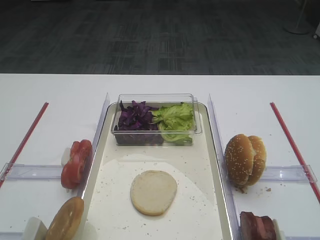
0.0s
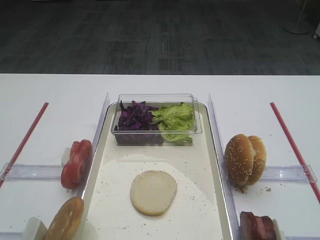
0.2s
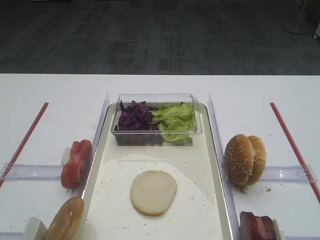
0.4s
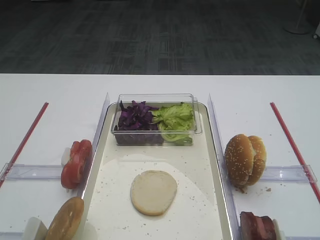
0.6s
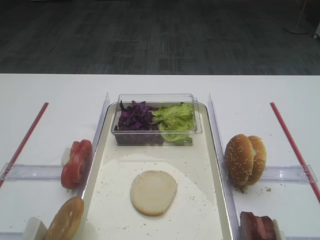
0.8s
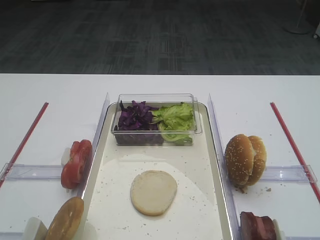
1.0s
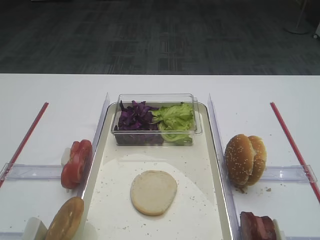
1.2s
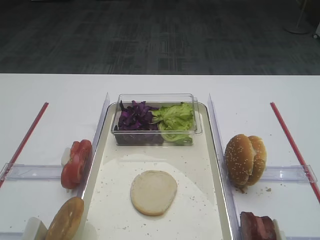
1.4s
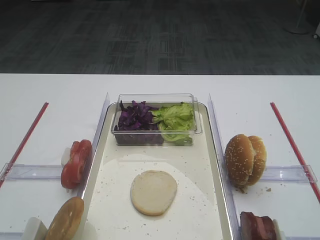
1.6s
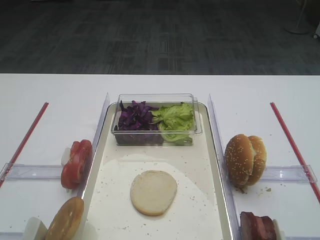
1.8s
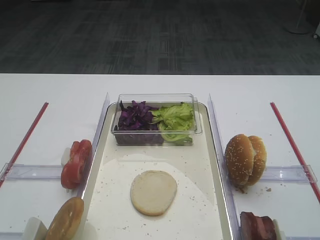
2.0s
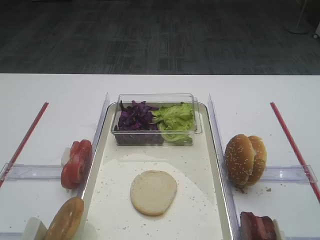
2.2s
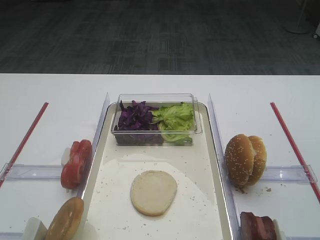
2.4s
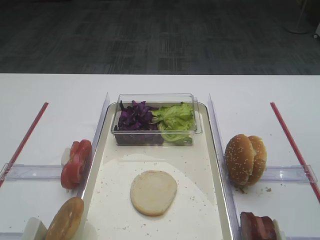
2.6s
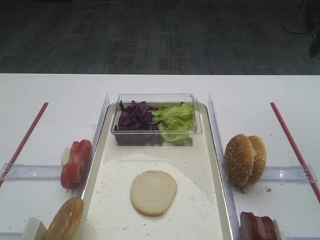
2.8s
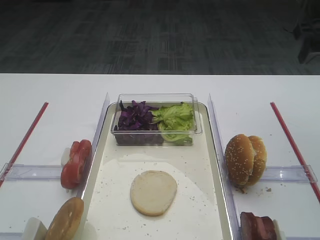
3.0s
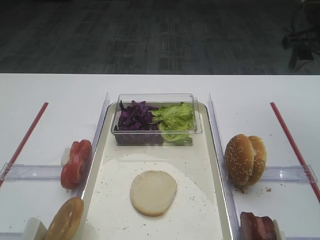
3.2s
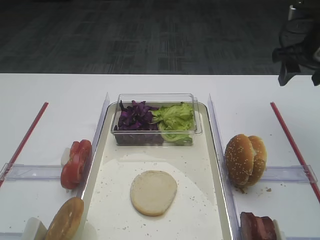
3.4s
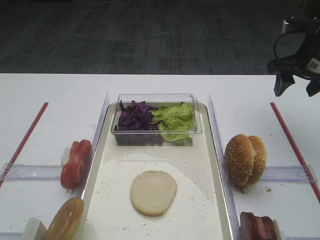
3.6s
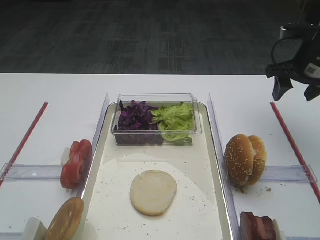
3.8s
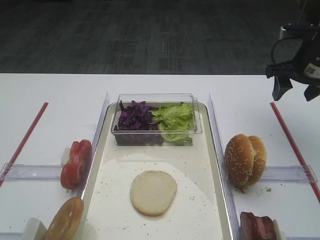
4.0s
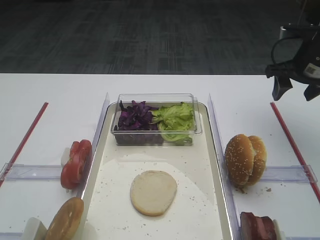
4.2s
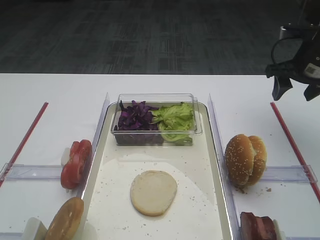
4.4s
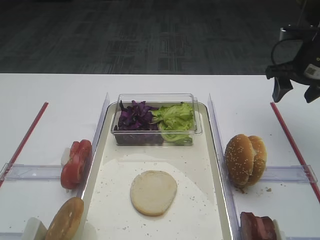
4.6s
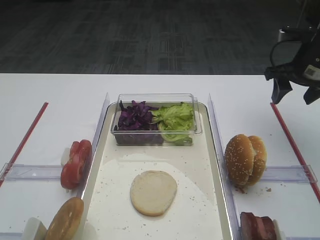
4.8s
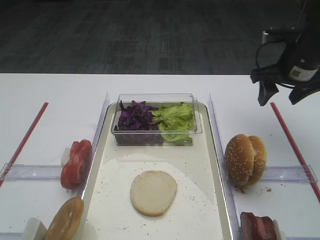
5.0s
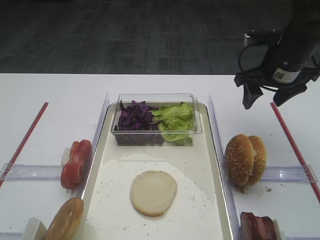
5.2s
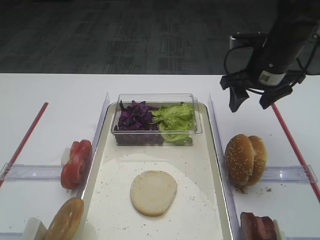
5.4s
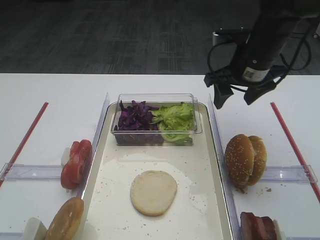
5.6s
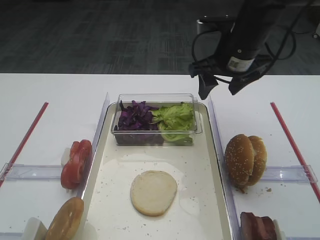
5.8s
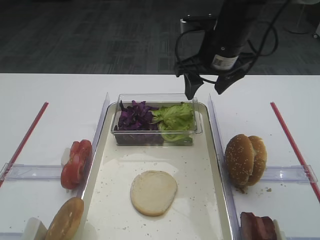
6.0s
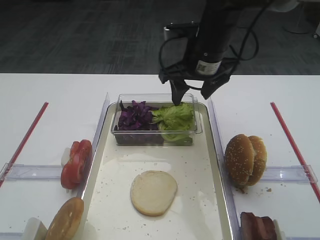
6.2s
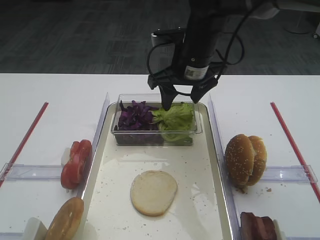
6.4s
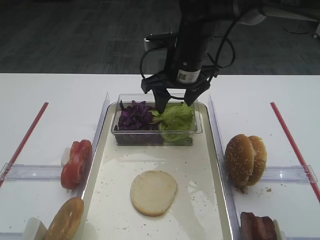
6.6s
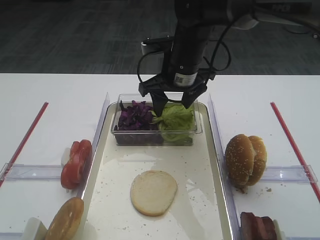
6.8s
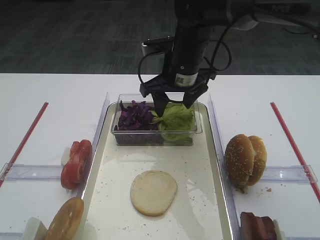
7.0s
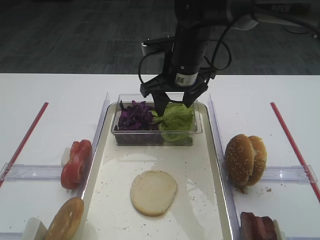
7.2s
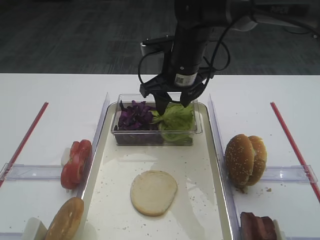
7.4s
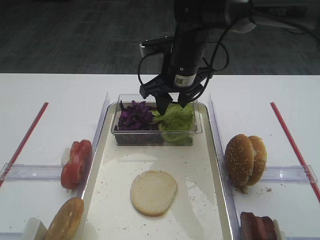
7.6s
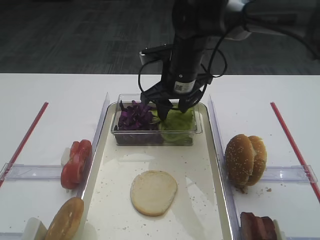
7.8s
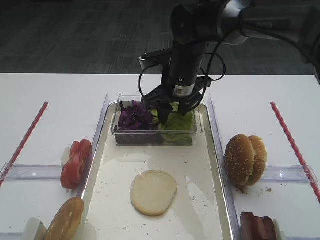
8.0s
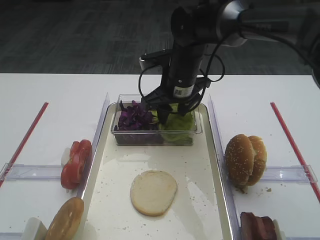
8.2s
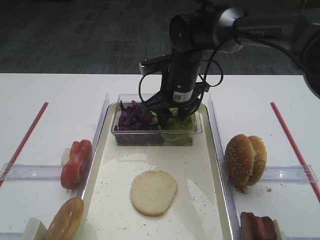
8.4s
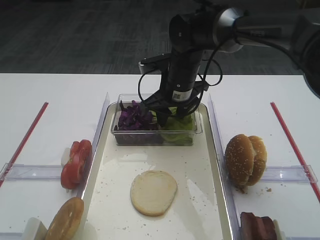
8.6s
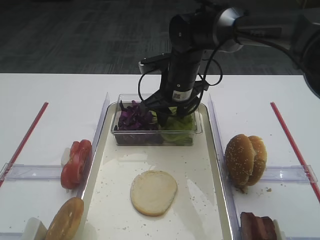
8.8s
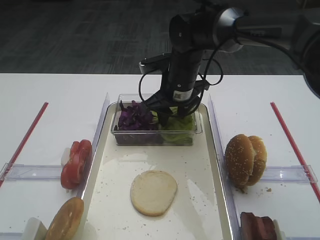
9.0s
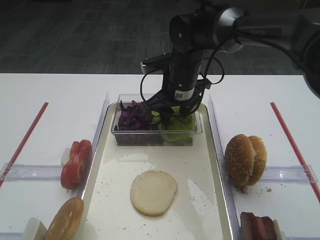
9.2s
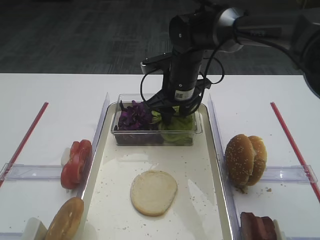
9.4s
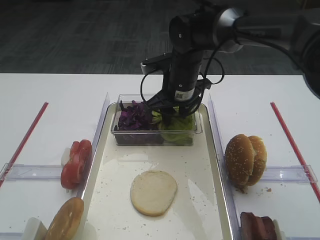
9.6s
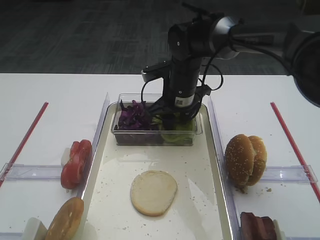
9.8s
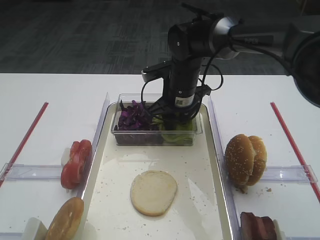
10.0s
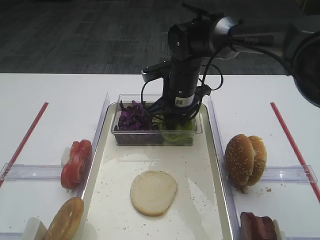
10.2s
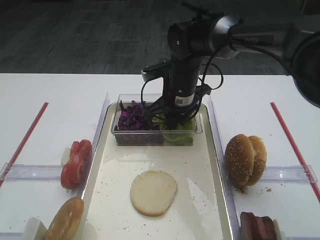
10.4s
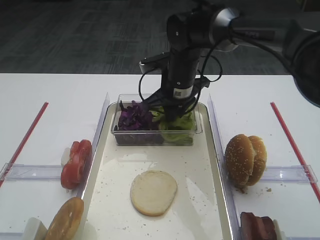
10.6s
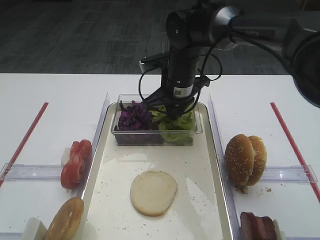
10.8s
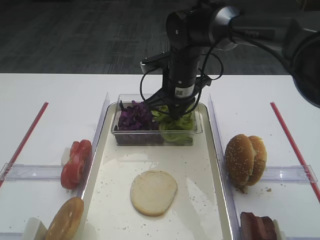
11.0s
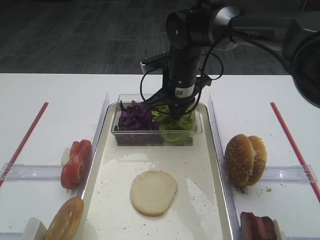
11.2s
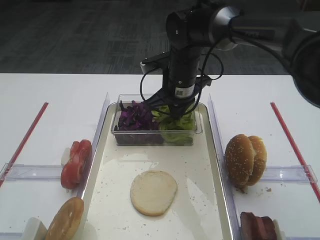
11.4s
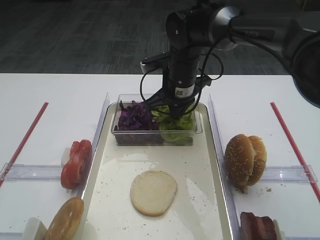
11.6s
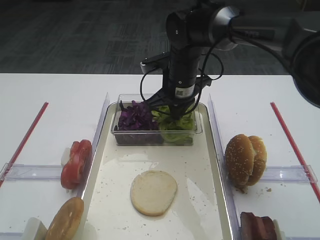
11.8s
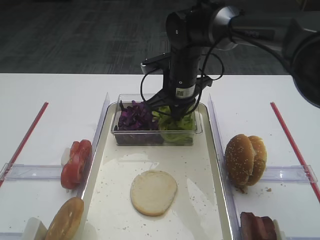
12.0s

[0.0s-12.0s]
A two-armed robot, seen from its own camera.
1.6s to 3.0s: The right gripper goes some 30 cm forward.
3.0s to 4.4s: The right gripper heads downward and forward, covering some 10 cm.
4.4s to 6.0s: The right gripper heads to the left, covering approximately 20 cm.
6.0s to 7.6s: The right gripper is displaced to the left by about 5 cm.
7.6s to 12.0s: There are only small adjustments of the grippers.

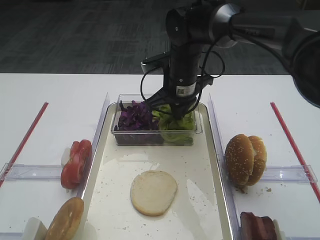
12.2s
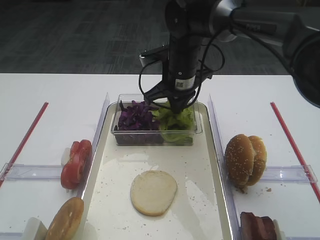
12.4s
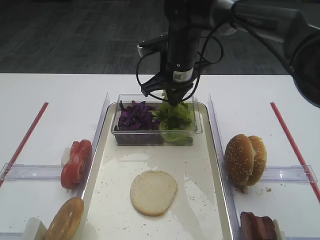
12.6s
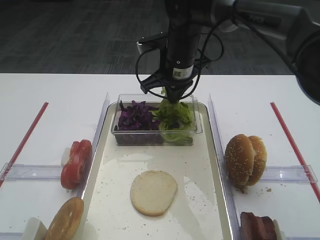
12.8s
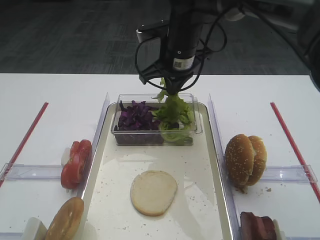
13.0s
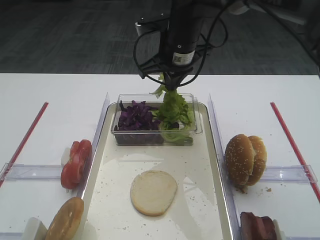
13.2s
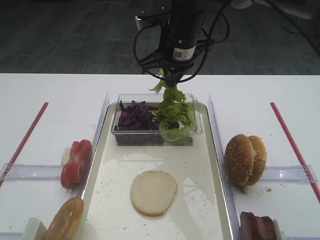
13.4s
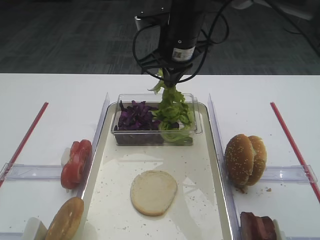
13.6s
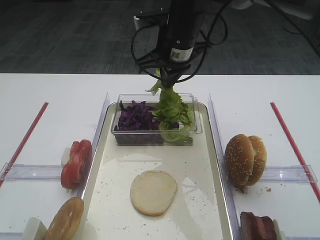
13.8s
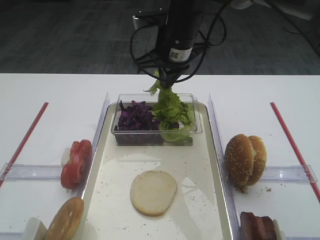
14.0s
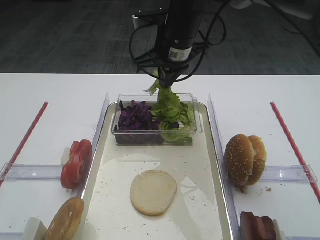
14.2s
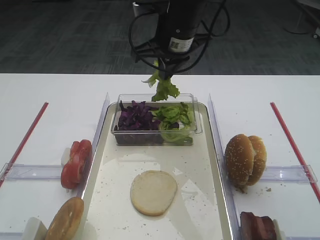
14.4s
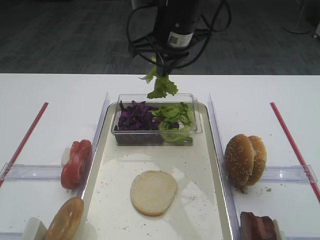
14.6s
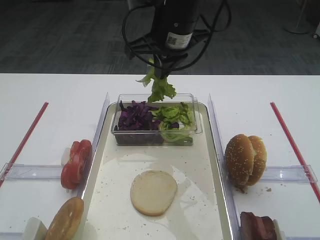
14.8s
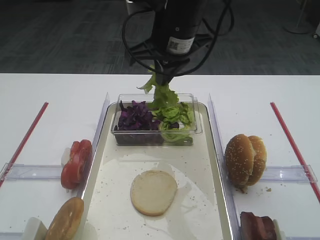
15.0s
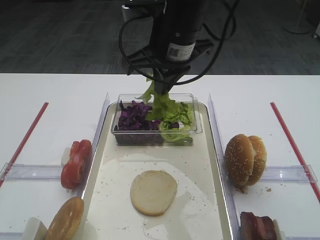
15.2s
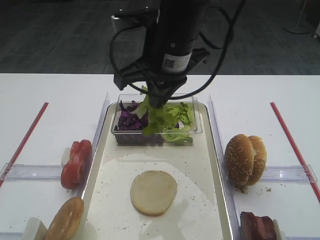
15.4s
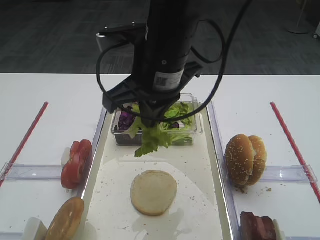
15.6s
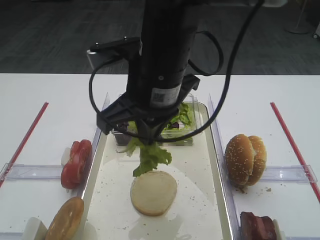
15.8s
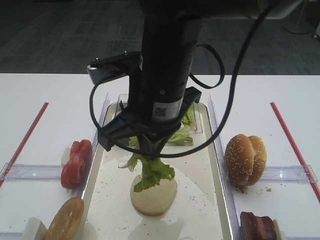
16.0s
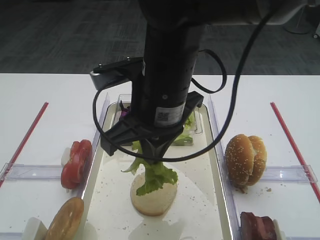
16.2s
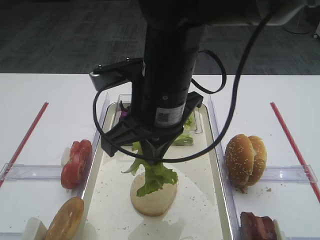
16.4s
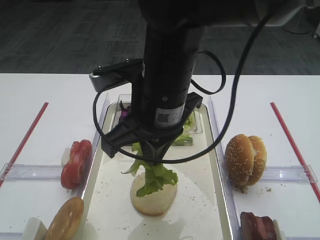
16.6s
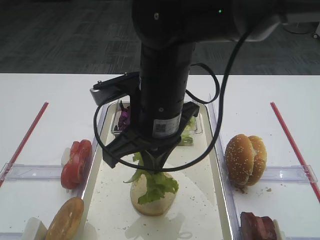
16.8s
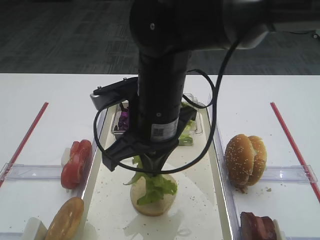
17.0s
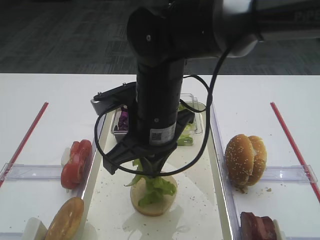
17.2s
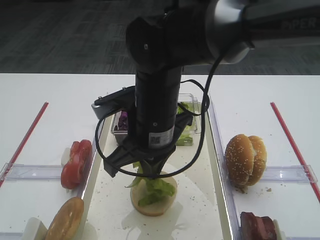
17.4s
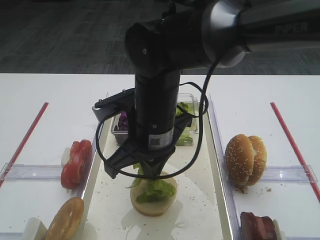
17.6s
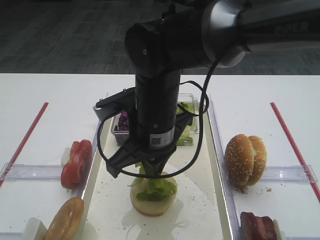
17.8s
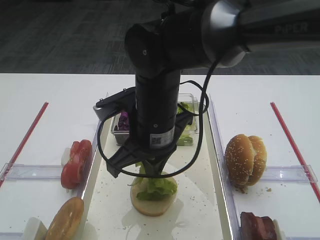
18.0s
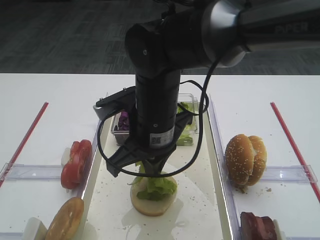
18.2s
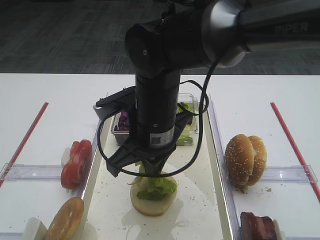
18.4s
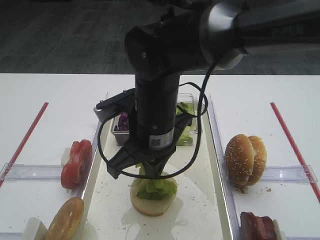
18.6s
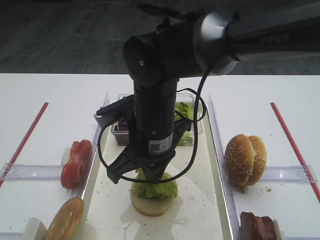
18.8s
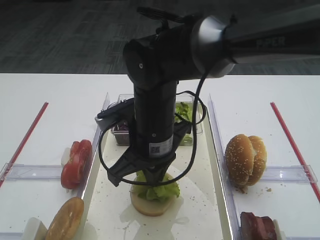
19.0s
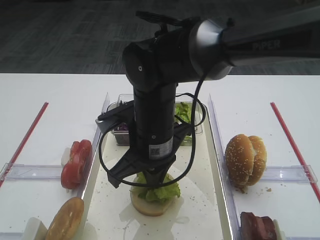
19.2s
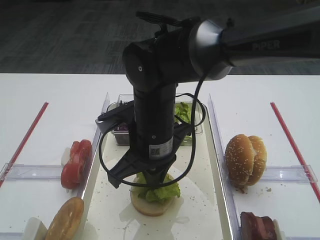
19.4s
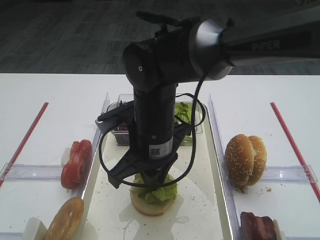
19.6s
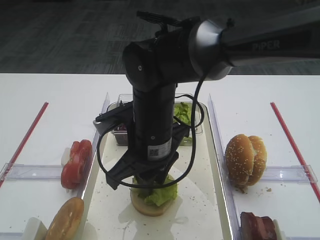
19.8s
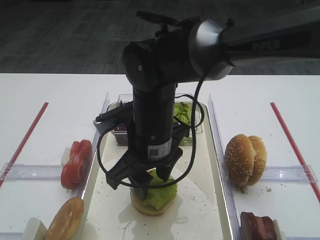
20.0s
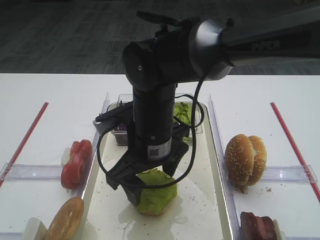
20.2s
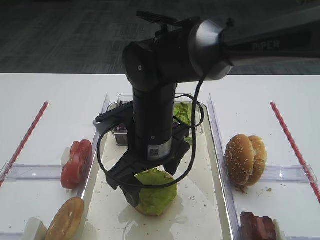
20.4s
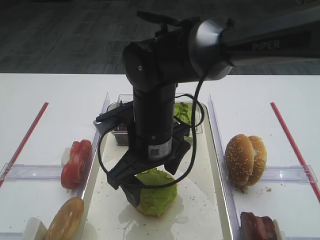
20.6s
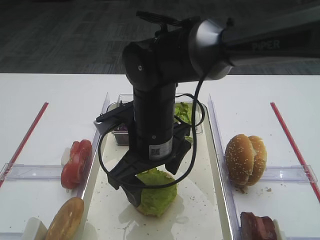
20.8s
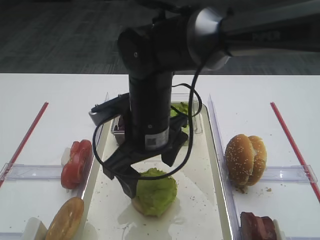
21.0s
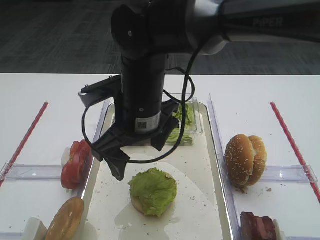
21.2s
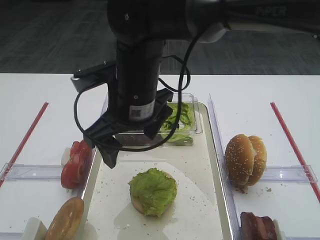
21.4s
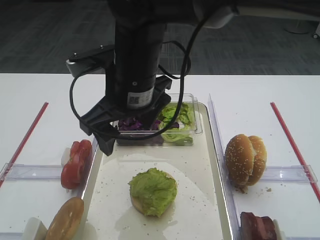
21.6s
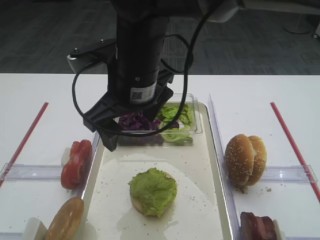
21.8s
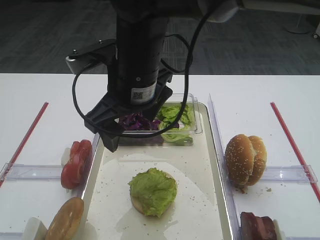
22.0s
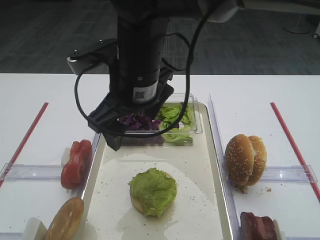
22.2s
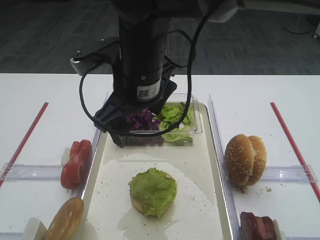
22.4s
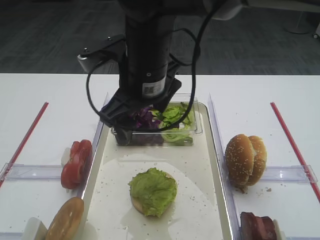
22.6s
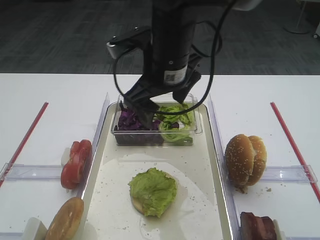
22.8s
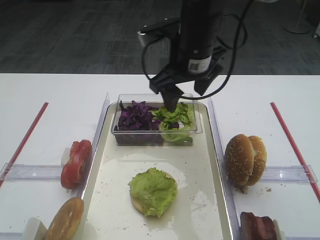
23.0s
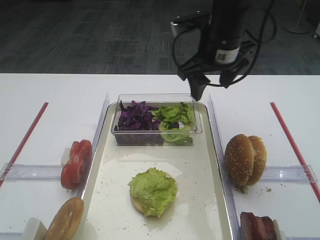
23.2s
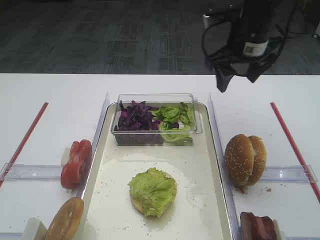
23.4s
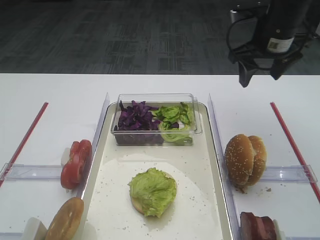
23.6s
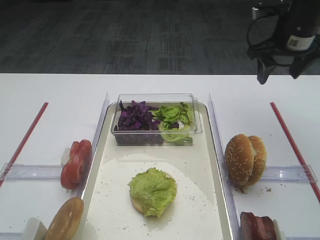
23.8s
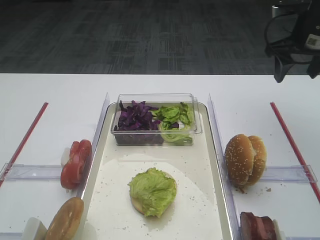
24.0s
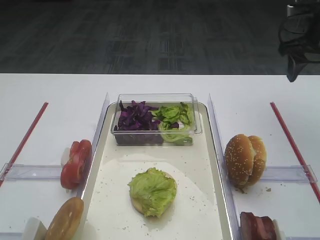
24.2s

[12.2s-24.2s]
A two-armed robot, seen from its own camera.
Step, 12.6s to 20.6s: Place the lettuce leaf on the bread slice with the right gripper.
12.2s to 13.8s: The right gripper heads upward, covering some 10 cm.
13.8s to 15.2s: The right gripper is displaced backward by approximately 5 cm.
15.2s to 16.6s: The right gripper shifts approximately 10 cm backward.
16.6s to 18.2s: The right gripper shifts approximately 5 cm downward.
18.2s to 19.8s: There are only small adjustments of the grippers.
19.8s to 21.2s: The right gripper opens.
21.2s to 22.6s: The right gripper changes place by roughly 5 cm.
22.6s to 24.2s: The right gripper is displaced to the right by some 30 cm.
